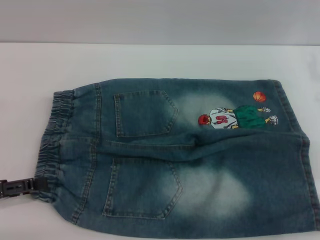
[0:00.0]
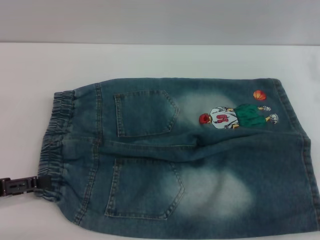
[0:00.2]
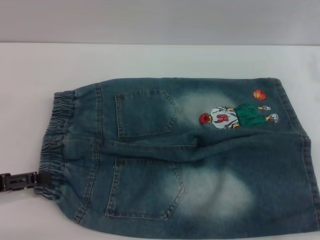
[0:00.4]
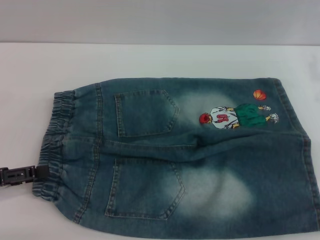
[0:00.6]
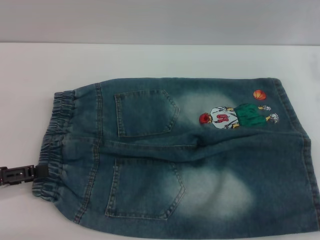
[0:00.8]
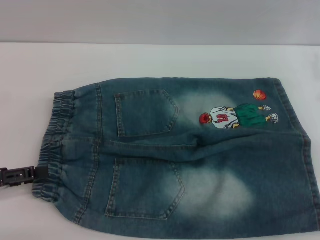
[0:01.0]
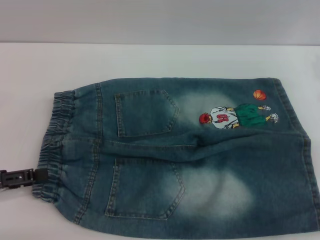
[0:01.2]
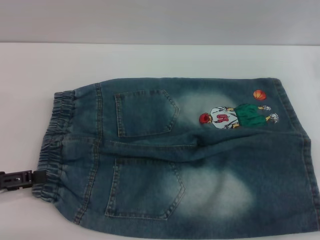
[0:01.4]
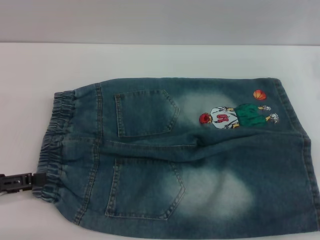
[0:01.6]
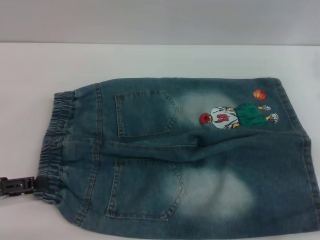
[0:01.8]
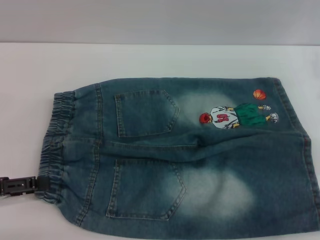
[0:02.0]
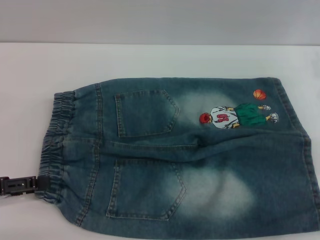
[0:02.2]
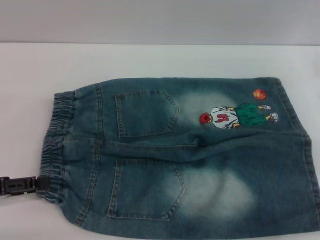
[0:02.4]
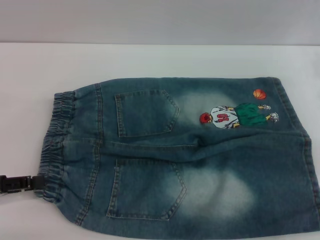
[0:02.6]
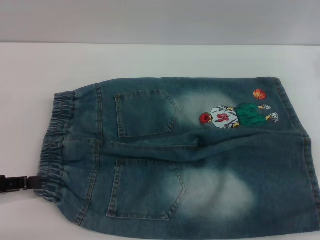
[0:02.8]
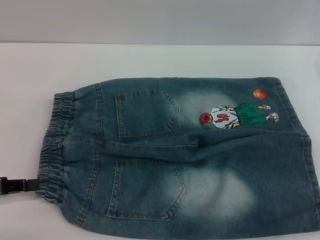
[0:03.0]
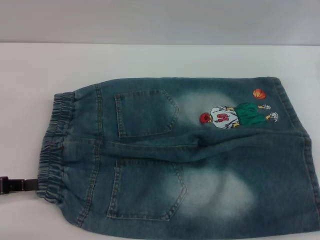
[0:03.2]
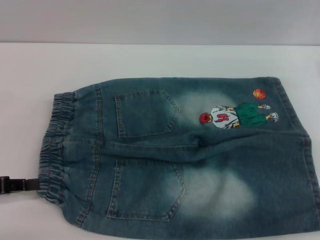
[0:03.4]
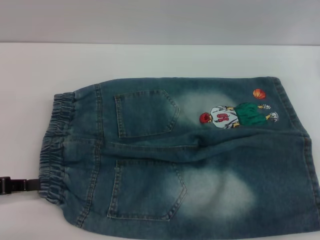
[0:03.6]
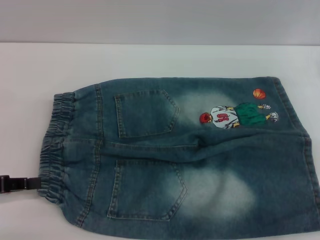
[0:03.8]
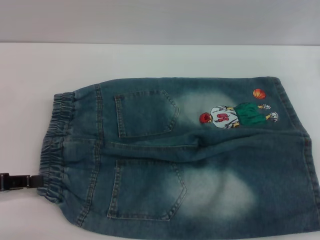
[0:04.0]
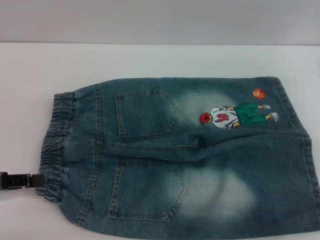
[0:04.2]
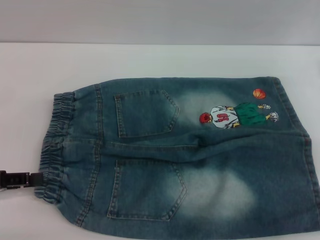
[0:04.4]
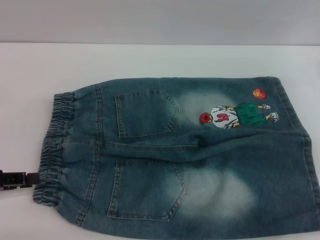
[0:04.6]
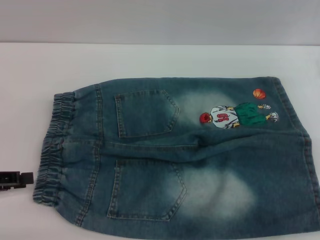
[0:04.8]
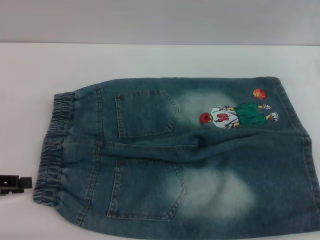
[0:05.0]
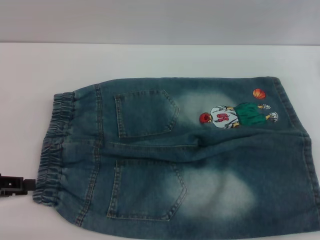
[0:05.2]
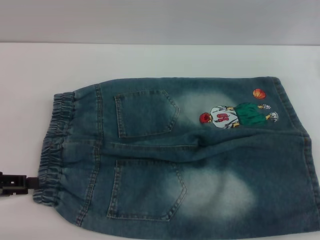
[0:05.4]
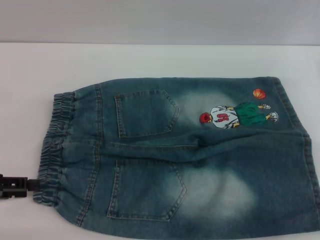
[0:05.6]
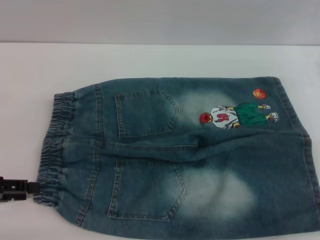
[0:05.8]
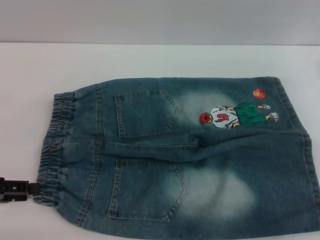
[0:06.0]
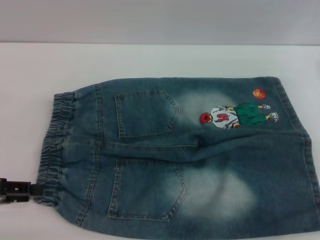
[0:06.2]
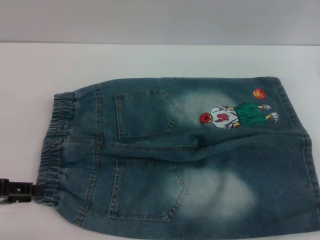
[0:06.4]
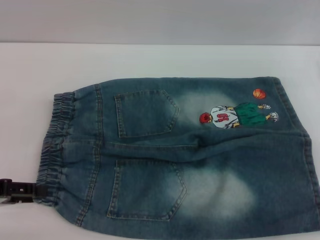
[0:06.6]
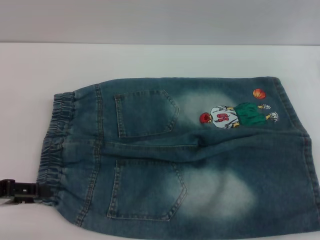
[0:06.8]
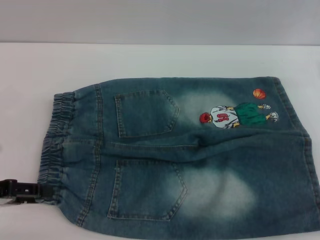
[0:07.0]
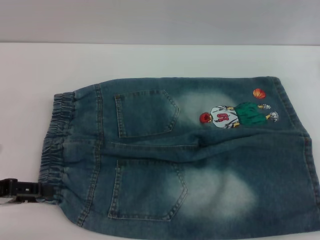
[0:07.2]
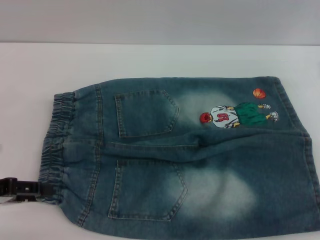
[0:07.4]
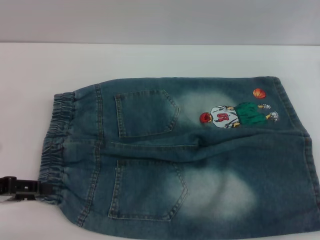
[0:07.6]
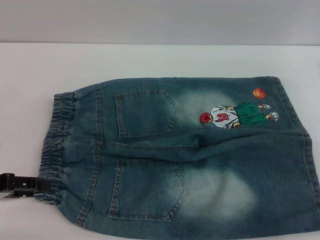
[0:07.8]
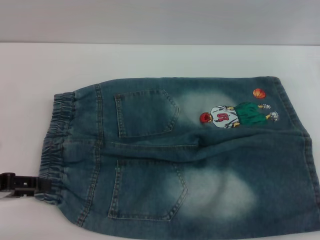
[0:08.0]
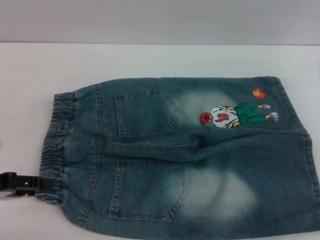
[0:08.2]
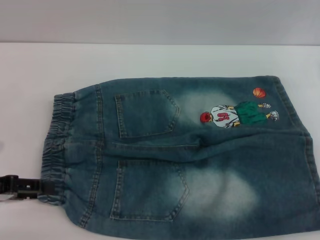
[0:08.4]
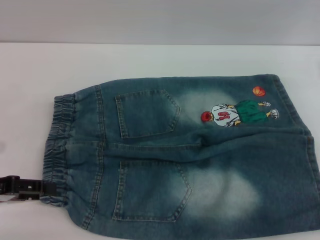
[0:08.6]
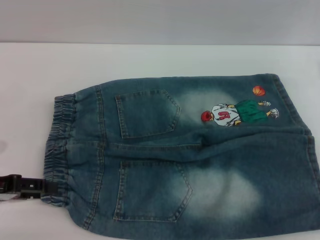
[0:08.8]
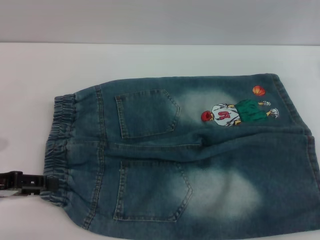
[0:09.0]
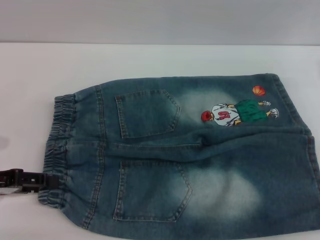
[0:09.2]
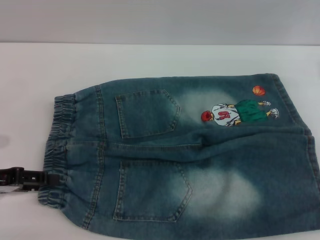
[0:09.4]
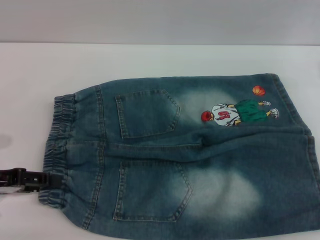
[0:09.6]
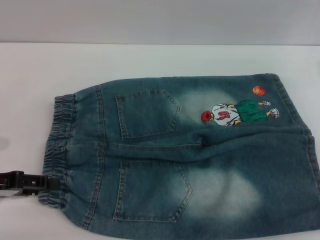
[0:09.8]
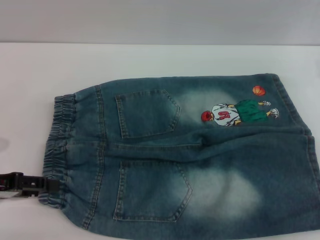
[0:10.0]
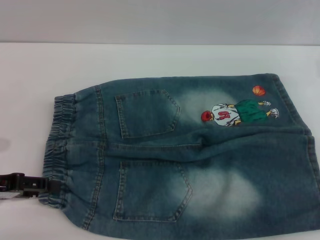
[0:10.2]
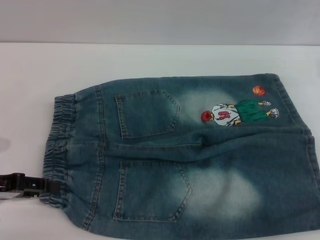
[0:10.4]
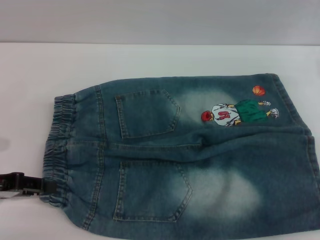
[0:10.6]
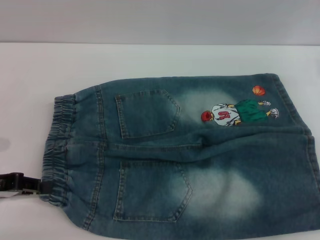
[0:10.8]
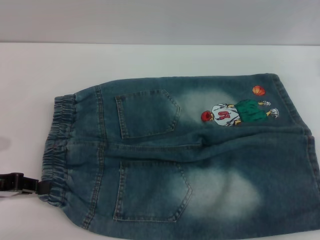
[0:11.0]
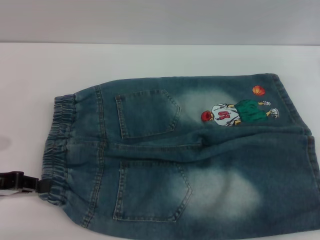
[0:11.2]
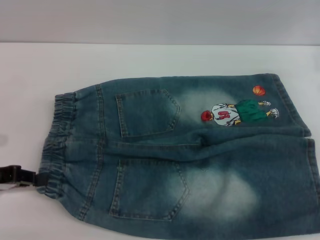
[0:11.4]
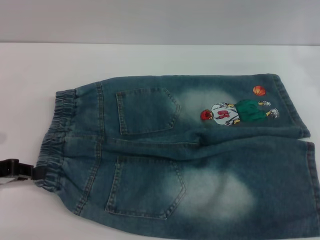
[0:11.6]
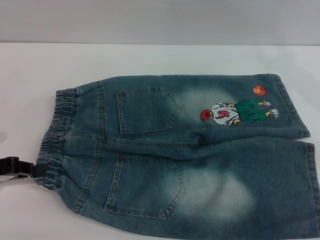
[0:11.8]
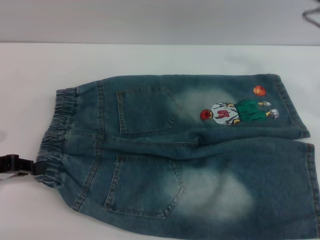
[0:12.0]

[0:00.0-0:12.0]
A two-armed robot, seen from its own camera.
0:00.0 to 0:01.6: The grippers move only a little.
0:01.6 to 0:03.0: The left gripper closes its fingers.
0:03.0 to 0:04.4: The left gripper closes and opens again.
0:04.4 to 0:06.0: The left gripper opens.
0:06.0 to 0:07.6: The grippers make only small movements.
0:07.6 to 0:09.0: Both grippers stay put.
0:09.0 to 0:10.4: The two grippers keep their place.
0:10.4 to 0:12.0: The right gripper goes some 10 cm upward and to the left. Meanwhile the left gripper closes its fingers.

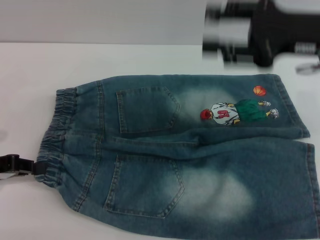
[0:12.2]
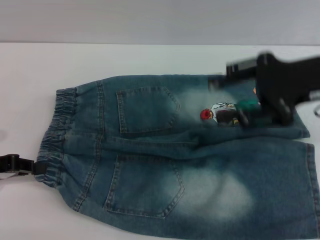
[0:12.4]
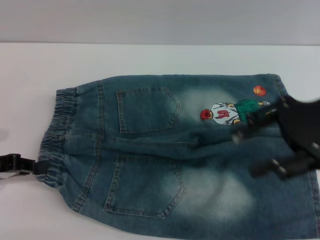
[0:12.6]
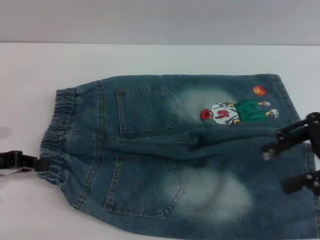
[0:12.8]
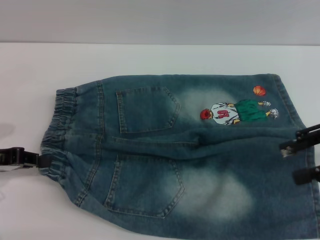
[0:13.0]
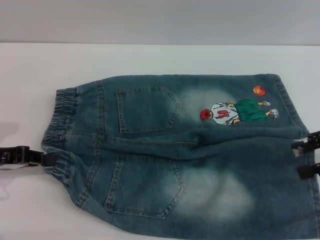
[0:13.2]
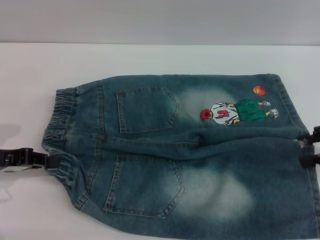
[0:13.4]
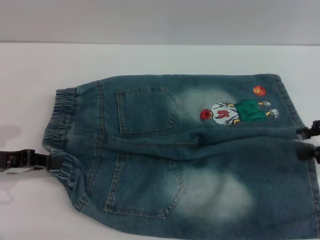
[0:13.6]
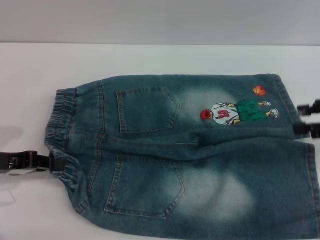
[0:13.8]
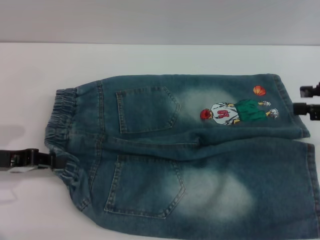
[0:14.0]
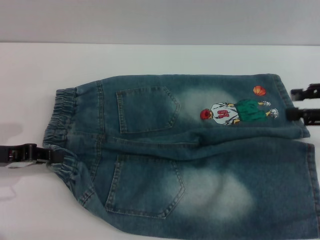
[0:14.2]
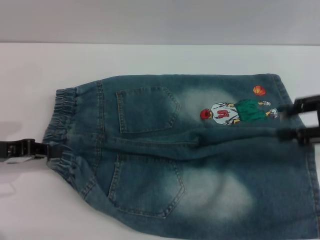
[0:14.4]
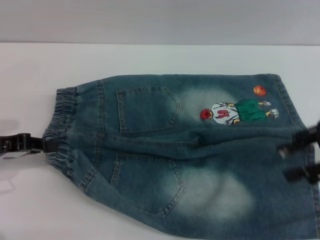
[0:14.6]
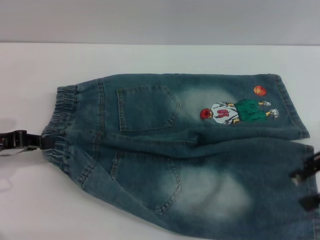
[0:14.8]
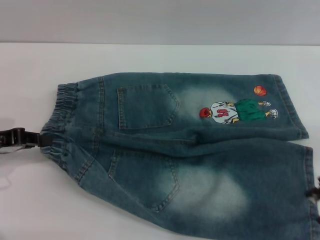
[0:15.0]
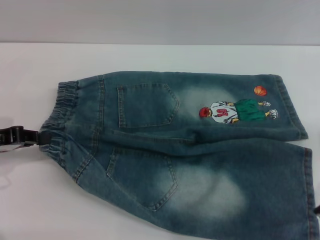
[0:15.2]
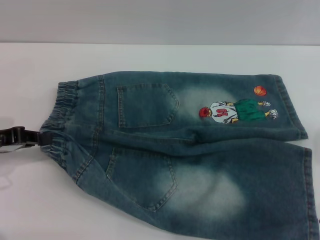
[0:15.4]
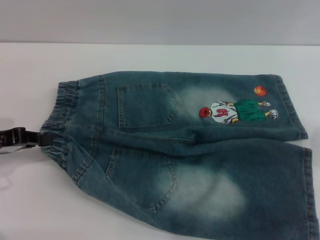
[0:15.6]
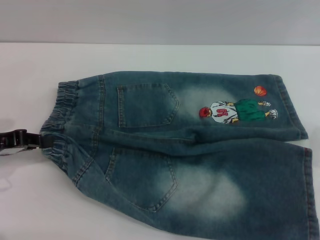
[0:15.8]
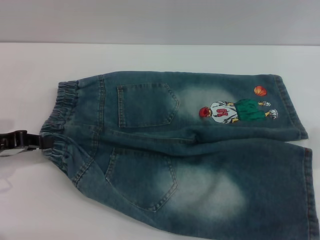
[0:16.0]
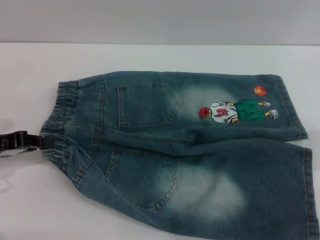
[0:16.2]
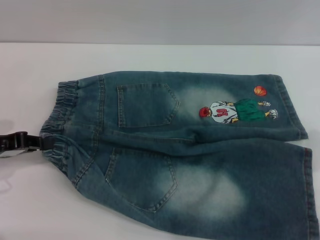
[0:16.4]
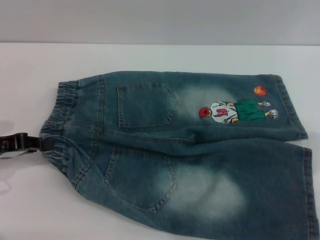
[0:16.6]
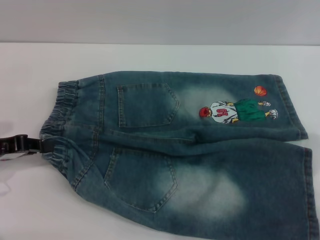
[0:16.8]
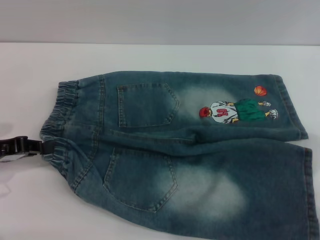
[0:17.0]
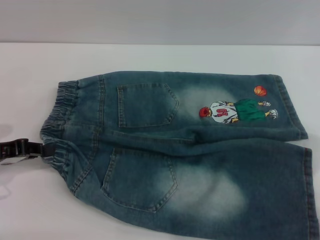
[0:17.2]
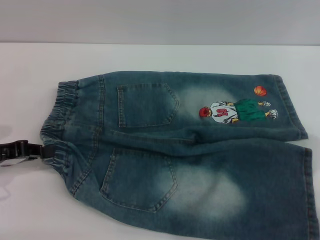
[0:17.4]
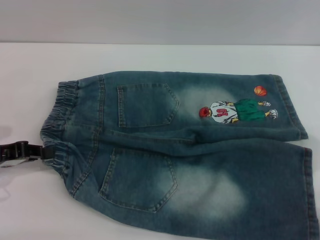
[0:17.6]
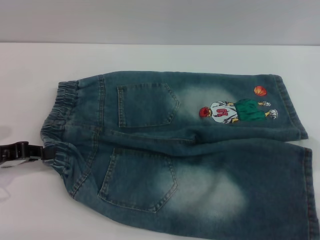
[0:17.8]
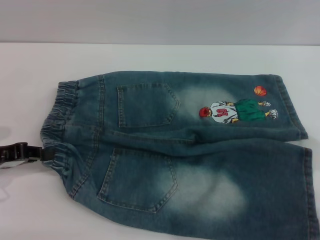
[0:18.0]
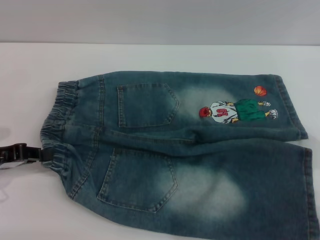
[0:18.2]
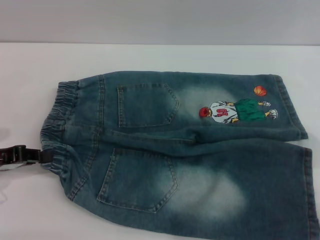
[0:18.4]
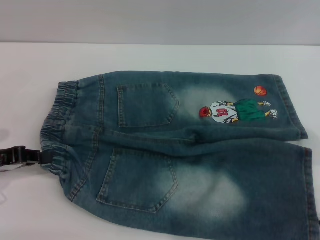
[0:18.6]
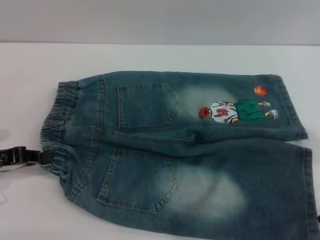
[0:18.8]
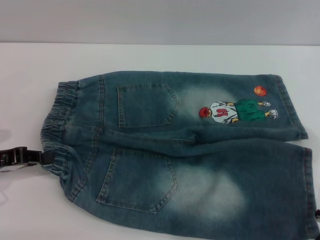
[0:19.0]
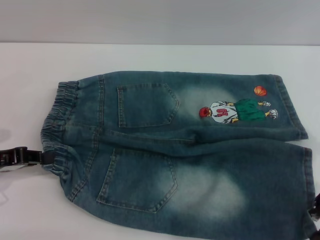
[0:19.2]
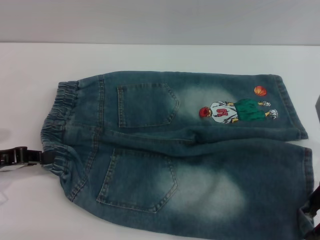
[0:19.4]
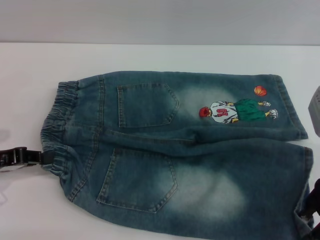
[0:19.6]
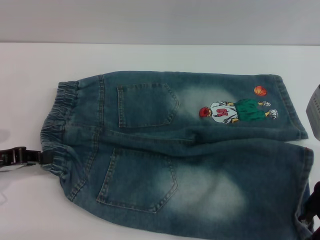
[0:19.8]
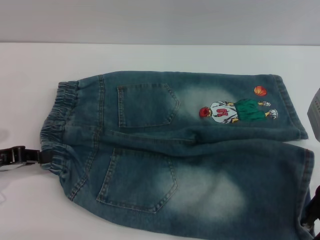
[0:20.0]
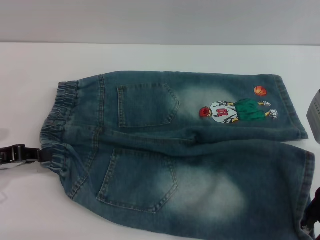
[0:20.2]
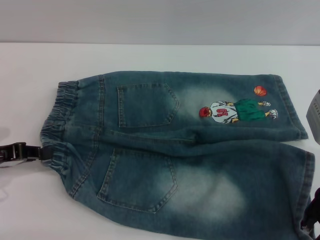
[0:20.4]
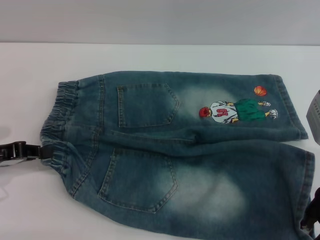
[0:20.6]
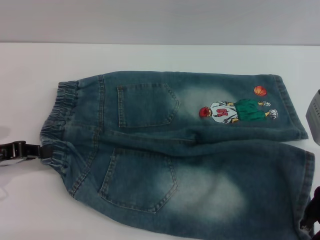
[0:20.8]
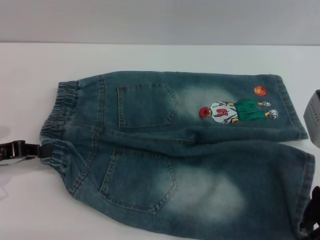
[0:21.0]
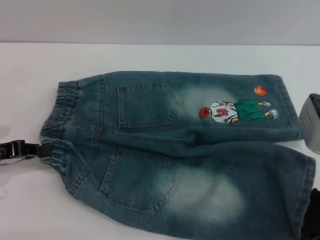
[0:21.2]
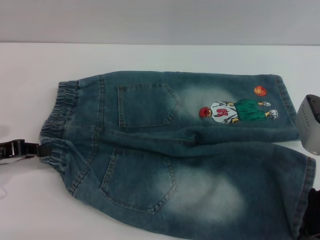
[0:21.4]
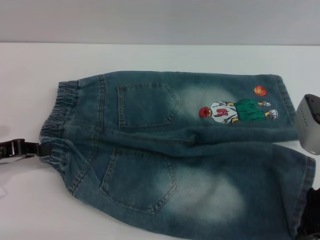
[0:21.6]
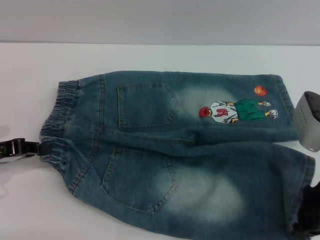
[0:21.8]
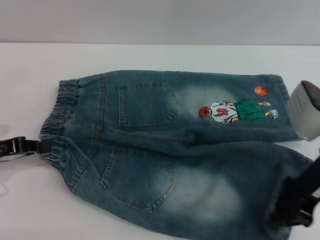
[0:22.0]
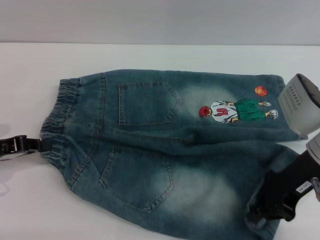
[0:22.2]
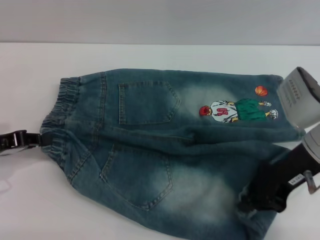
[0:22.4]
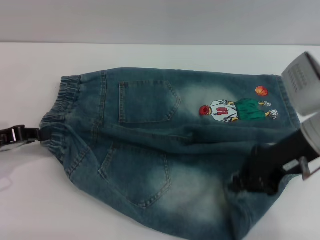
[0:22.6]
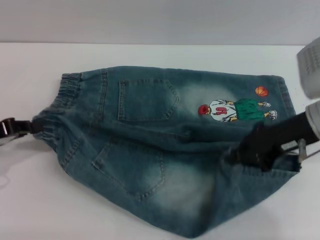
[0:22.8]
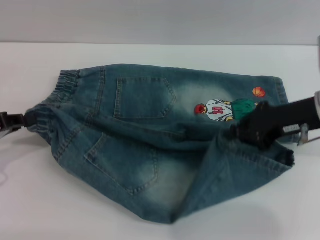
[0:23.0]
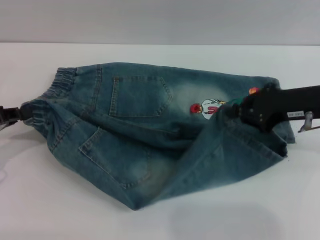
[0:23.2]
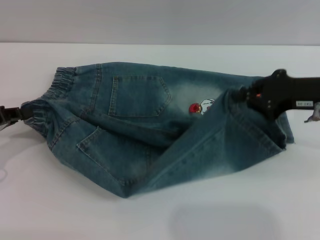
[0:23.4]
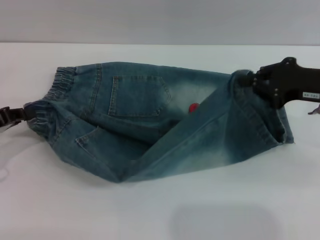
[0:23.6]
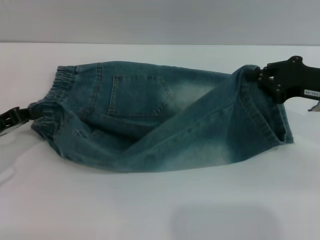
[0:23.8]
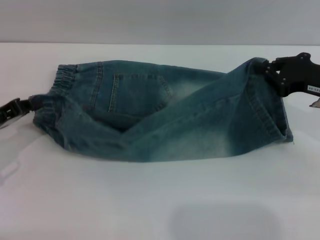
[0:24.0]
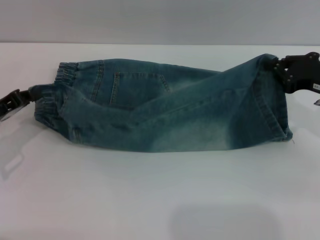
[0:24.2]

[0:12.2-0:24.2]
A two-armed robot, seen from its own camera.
0:12.2 to 0:13.8: The right gripper shifts about 15 cm to the right and downward.
0:16.6 to 0:19.8: There are only small adjustments of the grippers.
0:19.8 to 0:21.2: The right gripper closes.
0:21.2 to 0:22.6: The right gripper closes up.
0:22.6 to 0:24.2: The right gripper heads to the right, covering approximately 10 cm.
